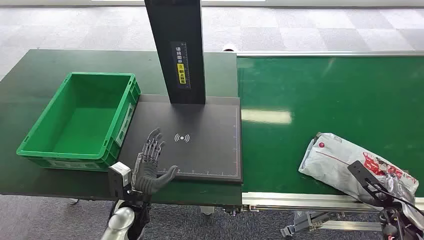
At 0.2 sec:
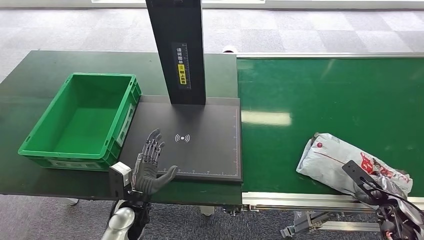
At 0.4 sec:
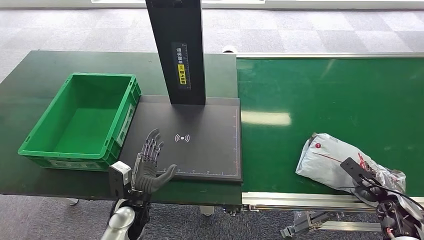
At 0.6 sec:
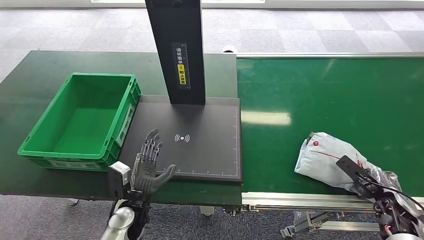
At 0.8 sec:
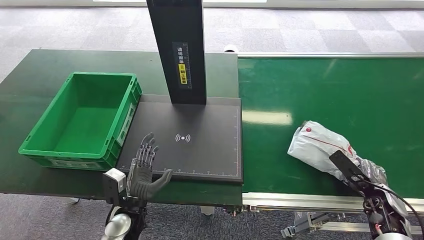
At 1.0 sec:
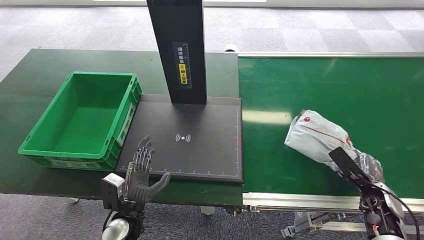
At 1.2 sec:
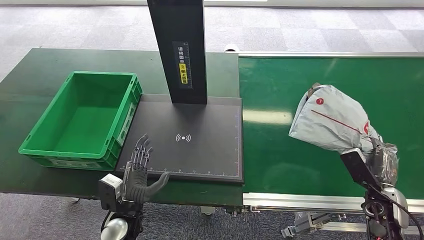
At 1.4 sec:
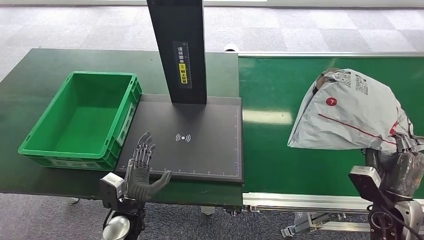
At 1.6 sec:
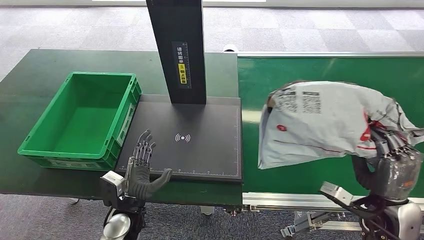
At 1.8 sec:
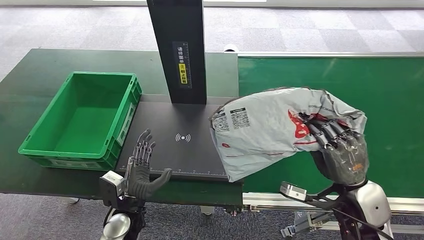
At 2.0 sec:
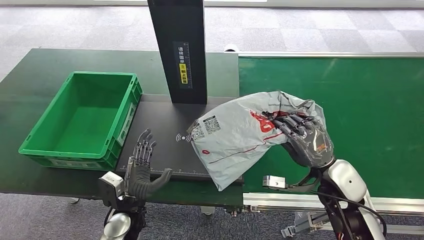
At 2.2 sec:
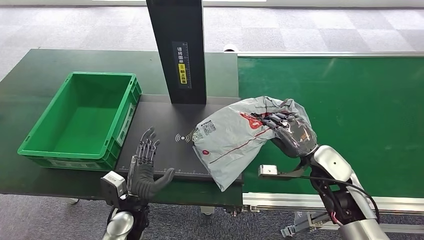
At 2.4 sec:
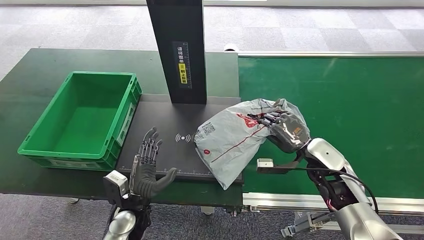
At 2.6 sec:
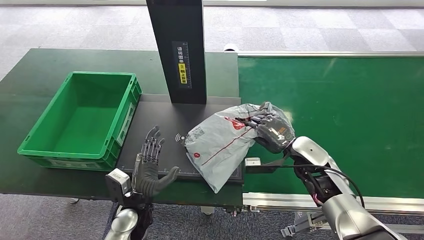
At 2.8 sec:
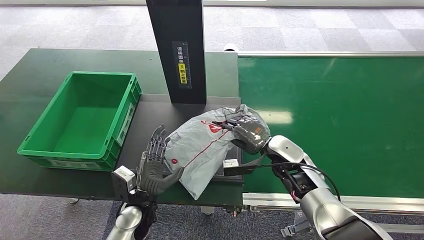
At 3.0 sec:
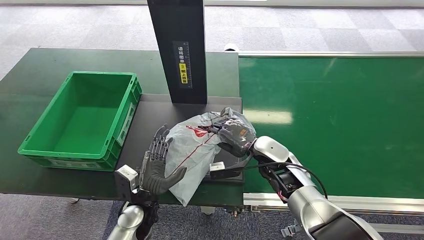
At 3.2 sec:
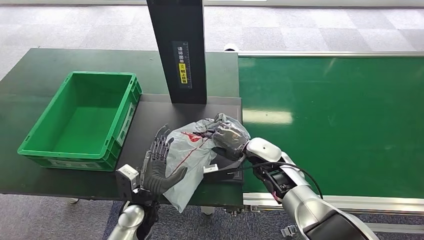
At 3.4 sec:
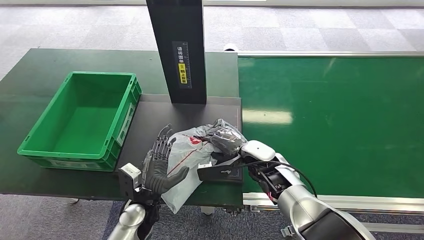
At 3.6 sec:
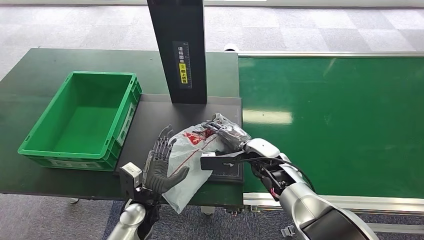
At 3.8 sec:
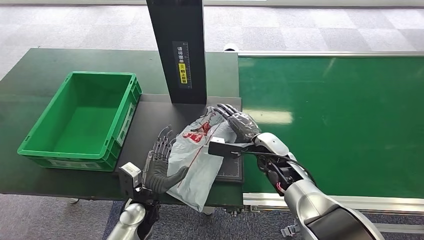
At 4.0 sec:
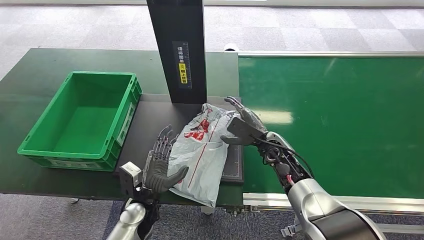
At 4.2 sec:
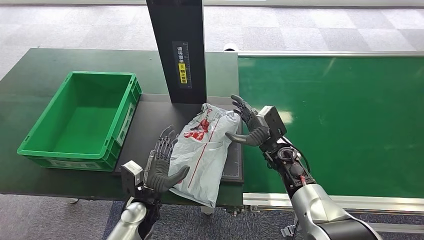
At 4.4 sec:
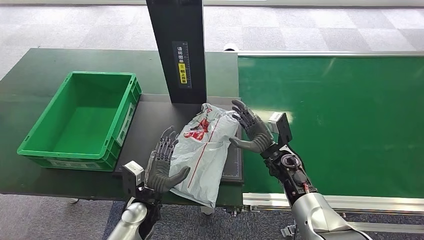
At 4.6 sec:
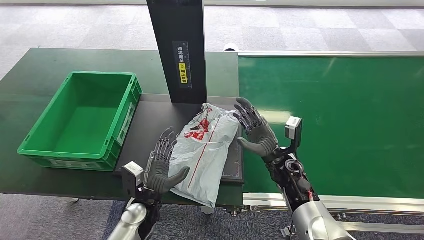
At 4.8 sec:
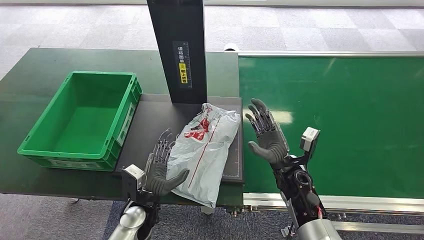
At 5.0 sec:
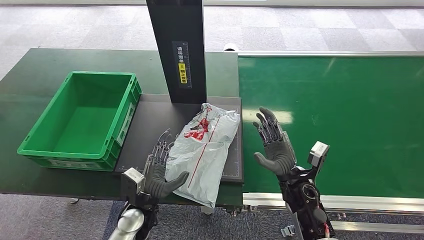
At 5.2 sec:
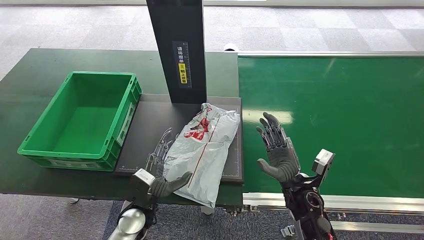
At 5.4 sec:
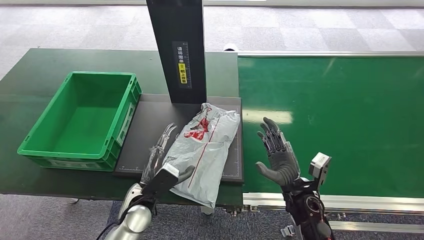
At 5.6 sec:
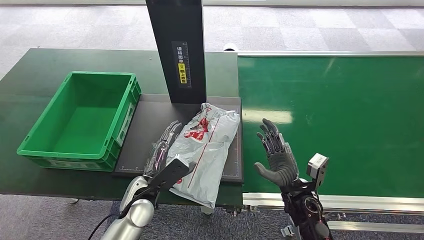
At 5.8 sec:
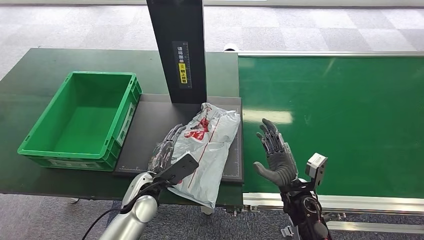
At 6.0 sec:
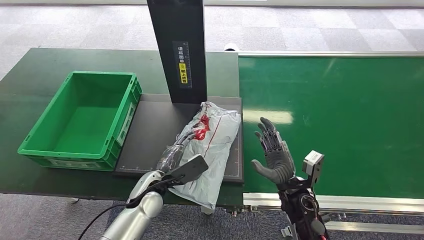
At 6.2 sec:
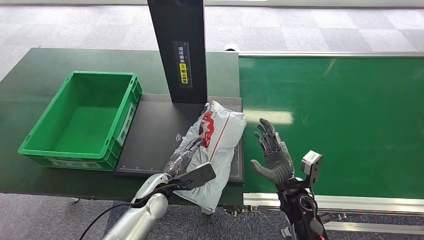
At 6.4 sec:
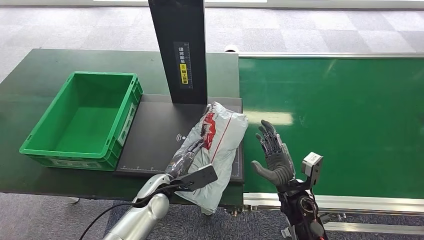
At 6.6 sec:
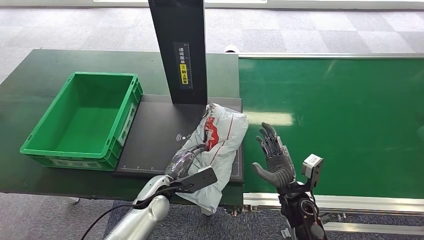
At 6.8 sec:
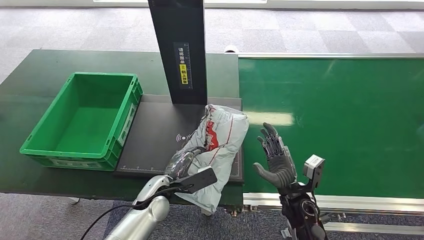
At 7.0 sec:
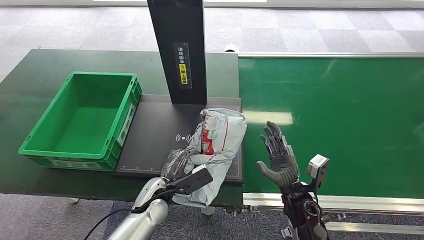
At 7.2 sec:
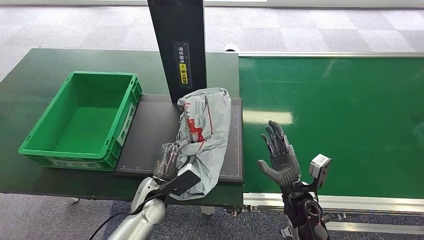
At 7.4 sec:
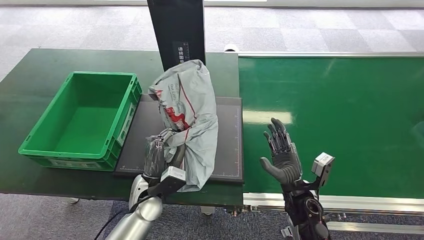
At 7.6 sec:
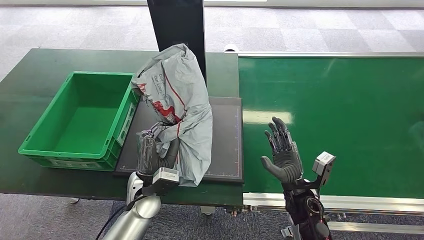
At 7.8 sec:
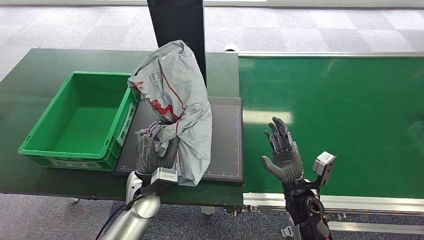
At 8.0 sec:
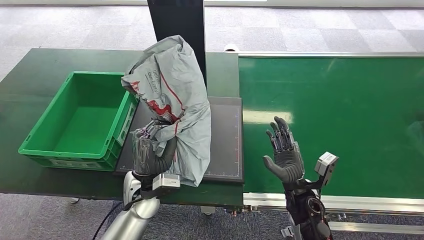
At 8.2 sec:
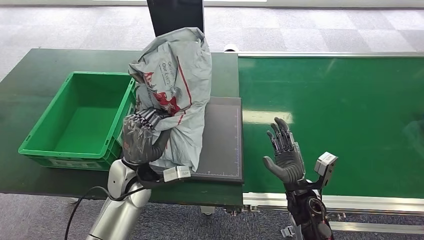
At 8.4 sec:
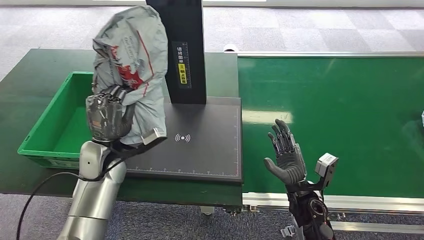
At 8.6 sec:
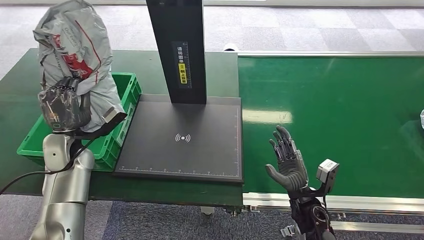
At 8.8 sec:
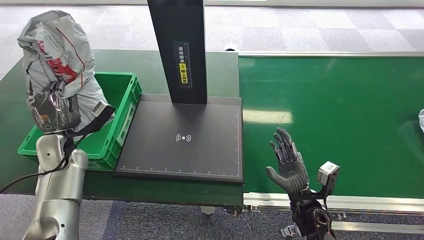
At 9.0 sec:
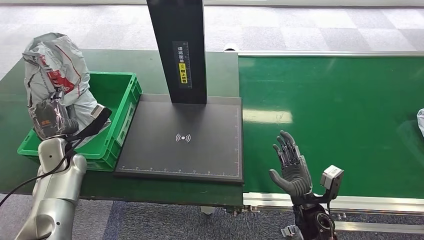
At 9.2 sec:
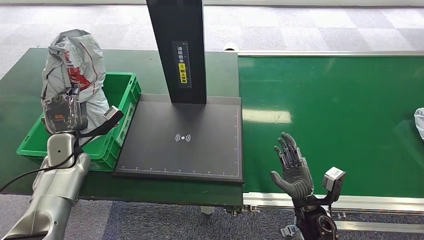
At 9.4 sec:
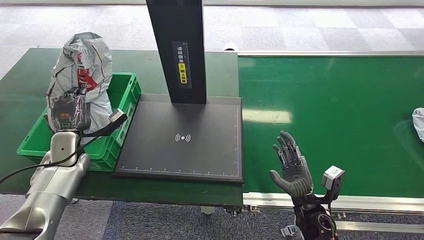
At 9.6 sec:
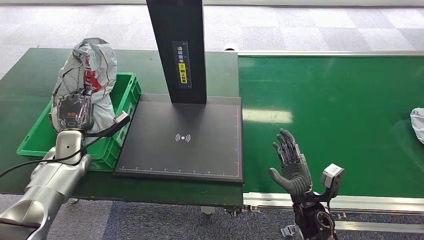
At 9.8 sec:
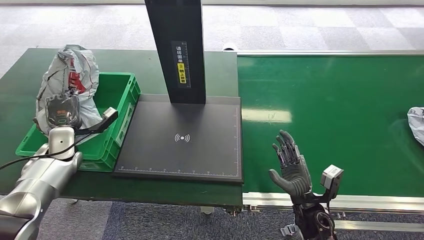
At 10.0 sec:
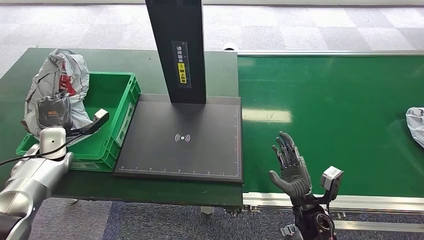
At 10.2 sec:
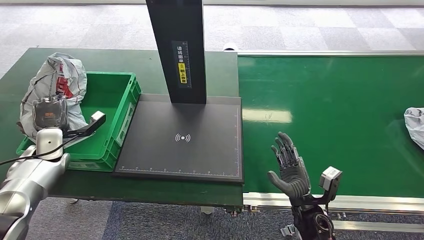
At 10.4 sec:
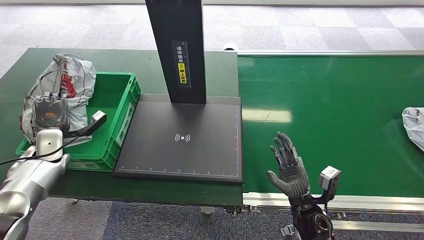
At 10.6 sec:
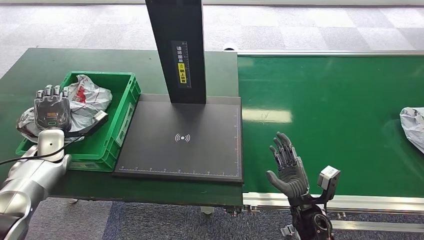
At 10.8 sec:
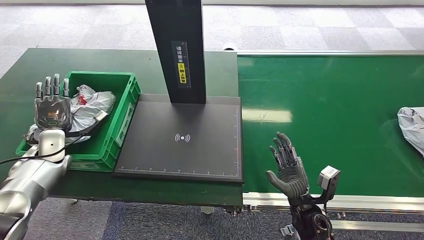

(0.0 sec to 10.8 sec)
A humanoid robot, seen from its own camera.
Task of the whole recording: Weigh the package on the weighing device and place it in the left basket.
Step, 0.0 sec - 1.6 sec: Pick up the package from the conveyor belt.
Step, 1.8 sec - 4.2 sec: Place the package onto the inbound machine.
Step, 4.4 sec - 7.4 sec: Pick up the package from the inbound machine.
Step, 7.6 sec - 10.8 sec: Place the package into the parcel locker.
4.6 sec - 6.2 sec: The right hand travels backward by about 10 cm.
6.2 sec - 7.8 sec: The left hand shifts by some 5 cm.
9.2 sec - 10.8 sec: The left hand shifts approximately 5 cm to the left.
